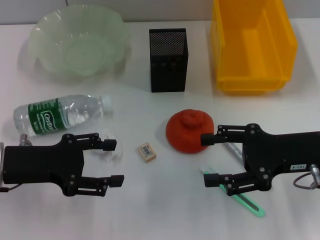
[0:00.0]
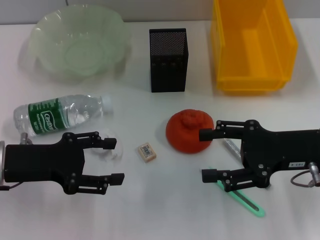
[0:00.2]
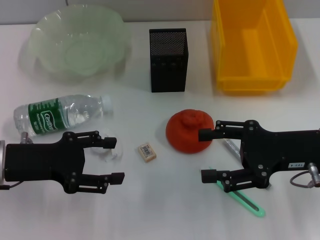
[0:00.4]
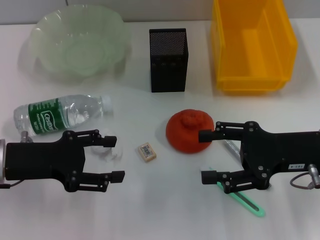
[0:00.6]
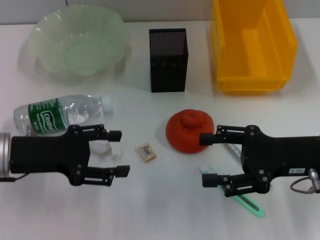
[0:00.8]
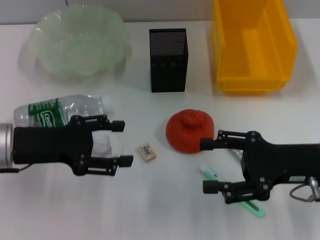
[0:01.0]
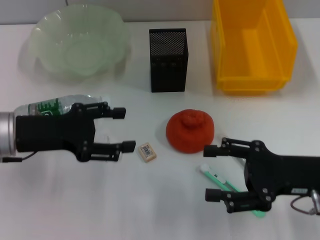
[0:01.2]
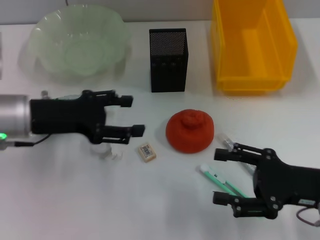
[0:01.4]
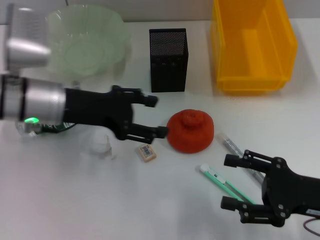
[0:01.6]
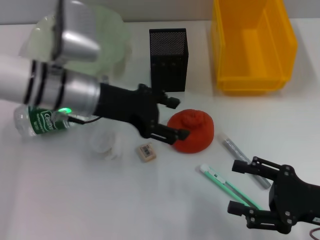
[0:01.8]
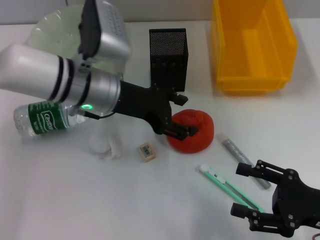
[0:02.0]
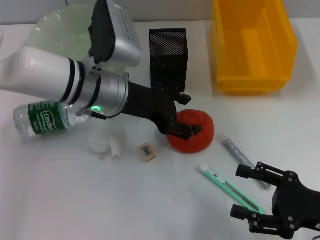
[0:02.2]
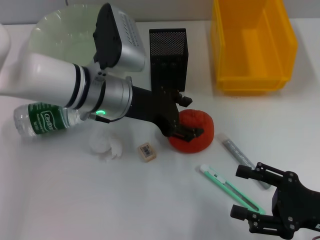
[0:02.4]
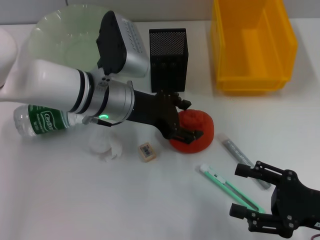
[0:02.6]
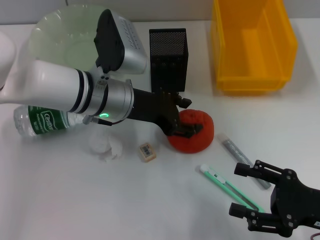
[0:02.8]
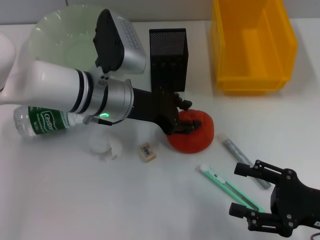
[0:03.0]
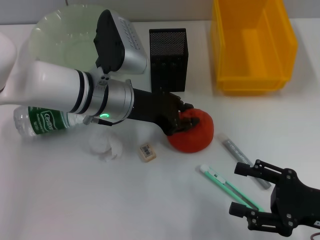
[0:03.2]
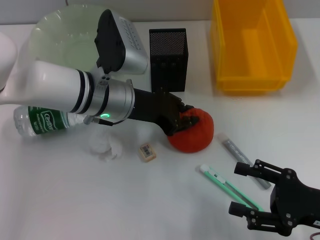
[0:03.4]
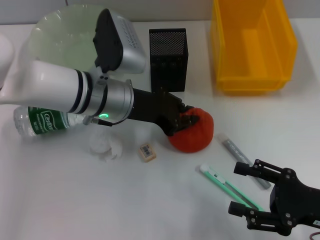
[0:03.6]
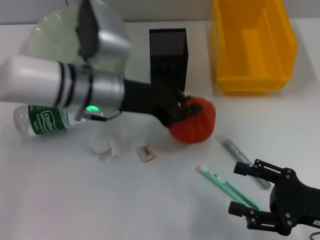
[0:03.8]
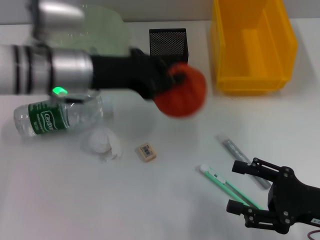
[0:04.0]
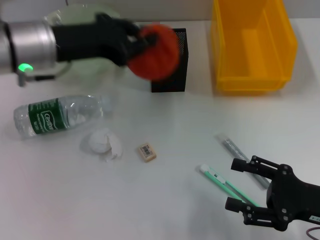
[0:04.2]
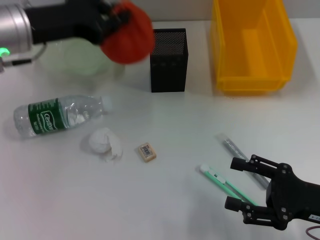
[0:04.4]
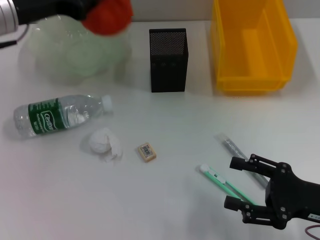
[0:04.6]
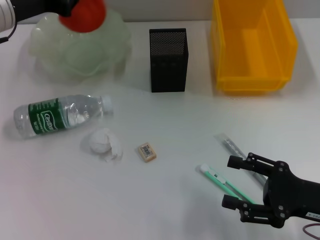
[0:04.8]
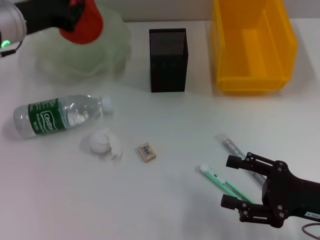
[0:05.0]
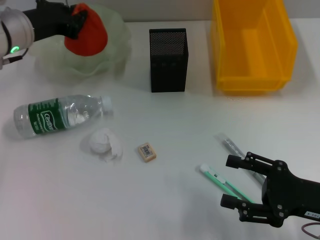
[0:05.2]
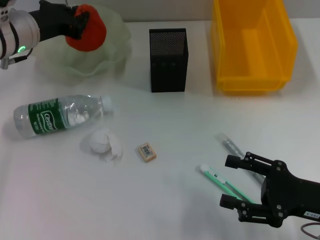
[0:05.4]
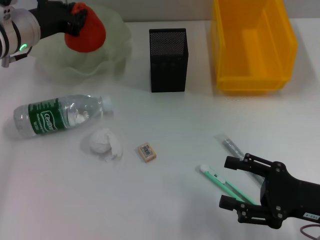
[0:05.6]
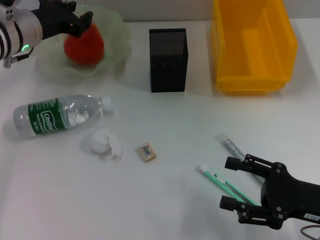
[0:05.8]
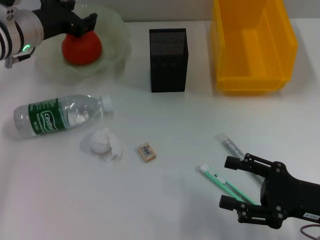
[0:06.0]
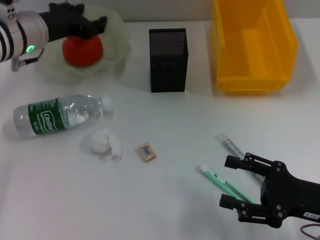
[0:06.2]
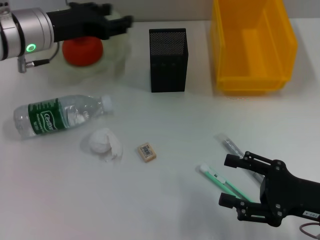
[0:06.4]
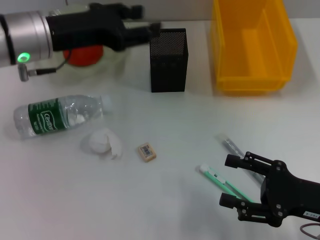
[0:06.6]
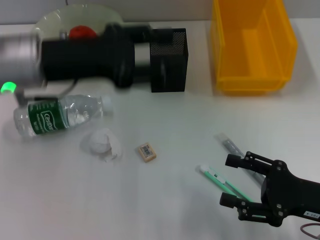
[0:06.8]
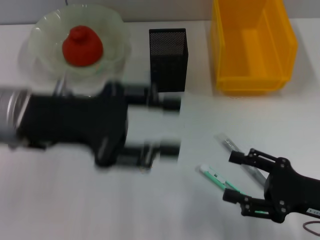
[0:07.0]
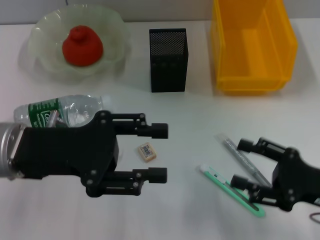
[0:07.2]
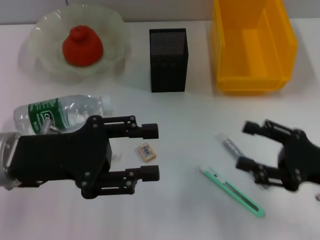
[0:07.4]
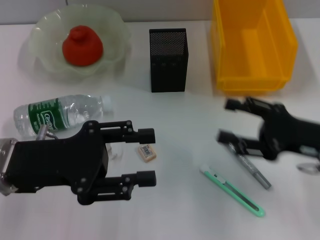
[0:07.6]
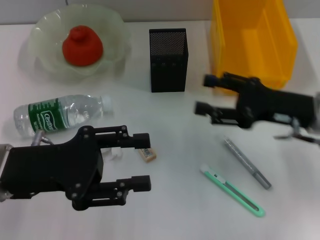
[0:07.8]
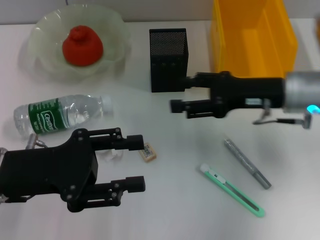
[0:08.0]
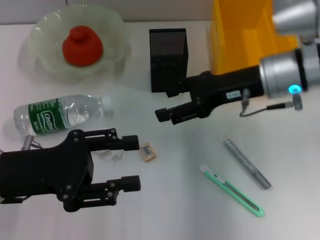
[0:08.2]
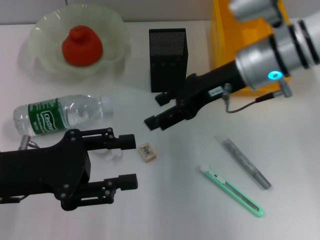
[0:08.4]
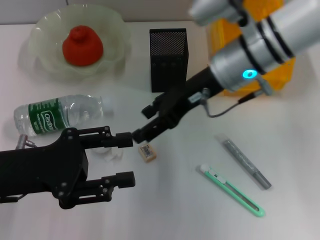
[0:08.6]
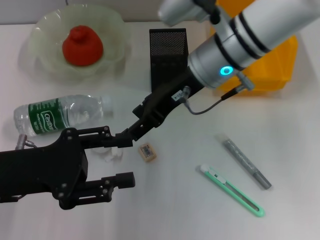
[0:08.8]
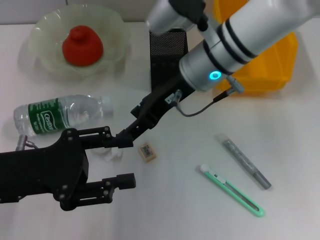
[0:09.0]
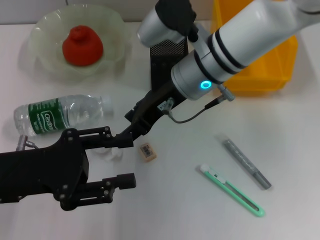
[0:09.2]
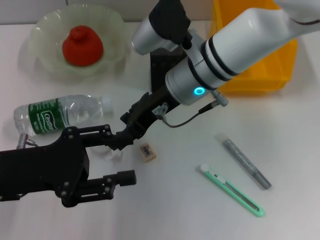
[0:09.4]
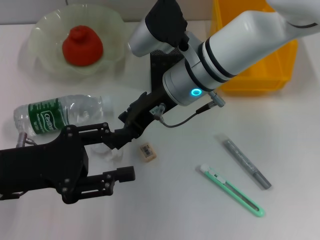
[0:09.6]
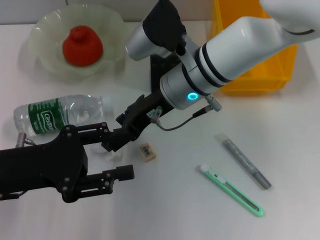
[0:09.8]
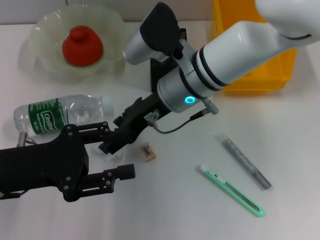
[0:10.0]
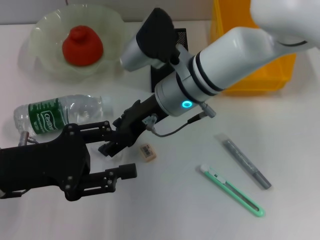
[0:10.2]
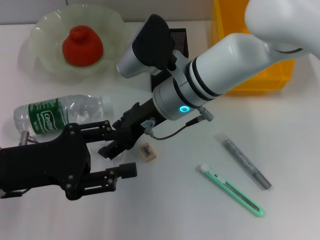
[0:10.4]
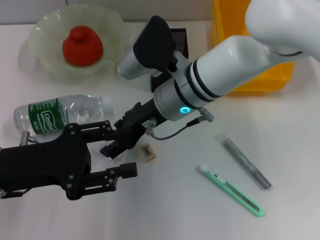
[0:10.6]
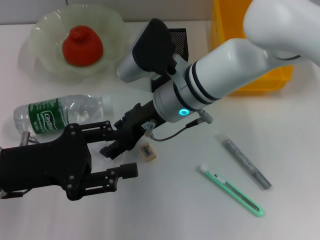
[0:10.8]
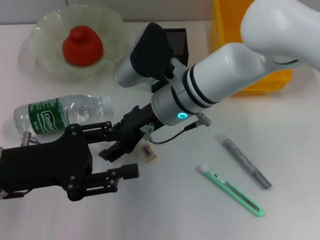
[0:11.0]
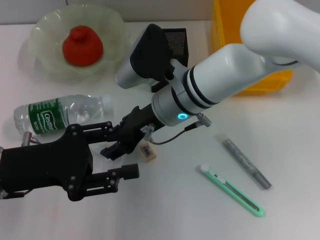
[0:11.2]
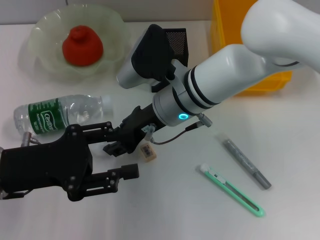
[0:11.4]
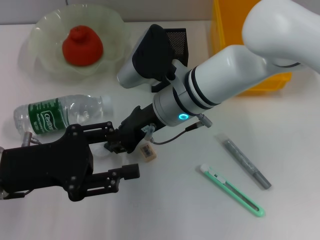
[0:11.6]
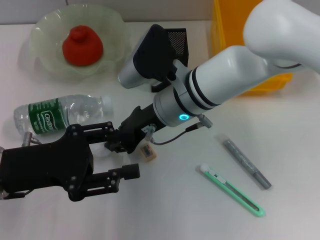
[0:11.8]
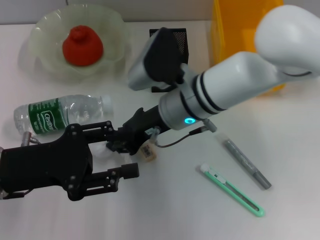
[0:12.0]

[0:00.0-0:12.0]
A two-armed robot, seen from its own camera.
Step, 0:00.0 to 0:03.4: Grab the orange with the left hand.
Step, 0:03.8 to 0:06.0: Place the orange into the fruit bowl with the left hand.
Step, 0:06.2 to 0:11.8: Grab the paper ball with the right hand.
0:00.0 to 0:01.6: The right gripper is displaced backward and downward by approximately 10 cm. The left gripper goes about 10 cm forward and to the right.
0:01.6 to 0:03.0: The left gripper heads to the right, covering some 10 cm.
0:03.0 to 0:04.4: The left gripper moves to the left and upward, about 15 cm, and closes.
0:04.4 to 0:06.0: The left gripper goes approximately 10 cm forward and downward.
0:06.0 to 0:07.6: The left gripper is displaced backward by about 20 cm, and opens. The right gripper travels forward by about 5 cm.
0:07.6 to 0:09.0: The right gripper is displaced to the left and forward by about 25 cm.
0:09.0 to 0:10.4: The right gripper moves some 5 cm.
0:10.4 to 0:12.0: The right gripper closes up.

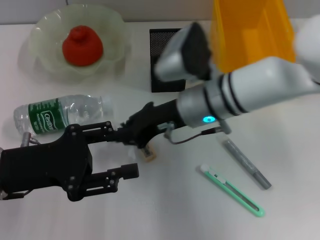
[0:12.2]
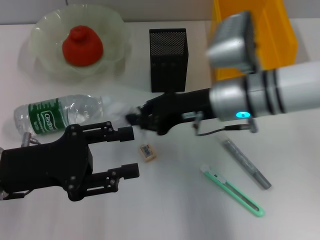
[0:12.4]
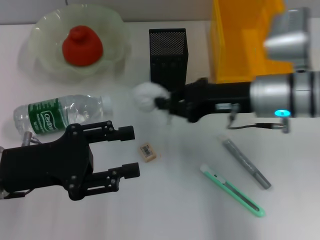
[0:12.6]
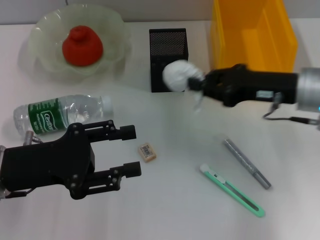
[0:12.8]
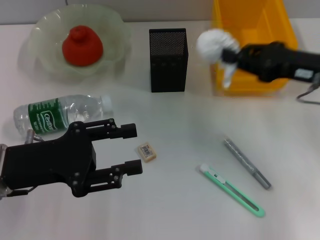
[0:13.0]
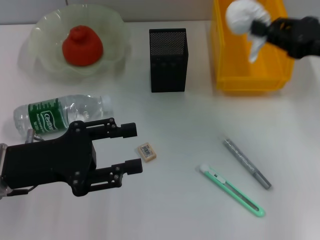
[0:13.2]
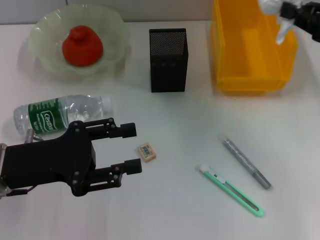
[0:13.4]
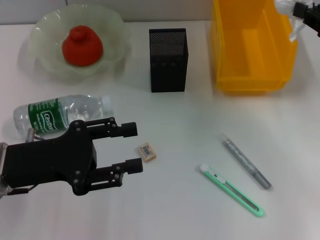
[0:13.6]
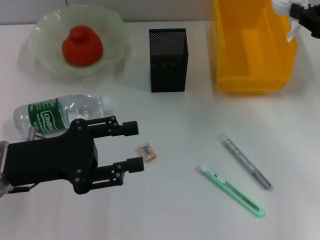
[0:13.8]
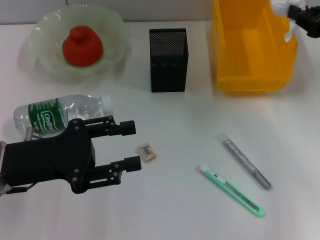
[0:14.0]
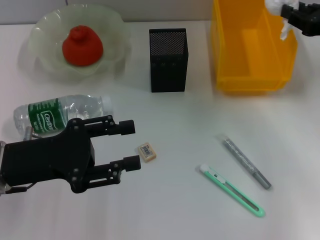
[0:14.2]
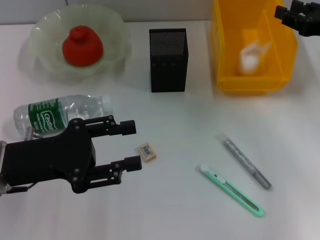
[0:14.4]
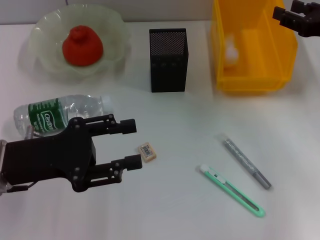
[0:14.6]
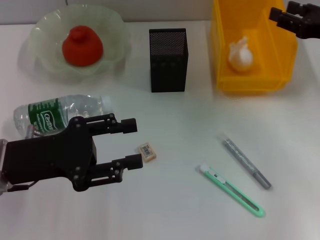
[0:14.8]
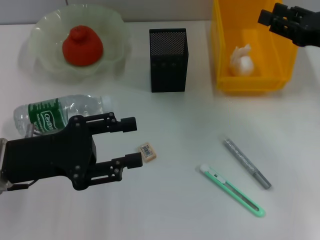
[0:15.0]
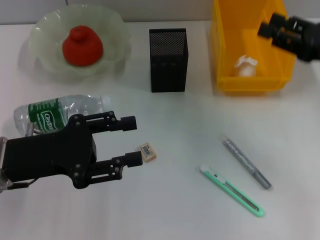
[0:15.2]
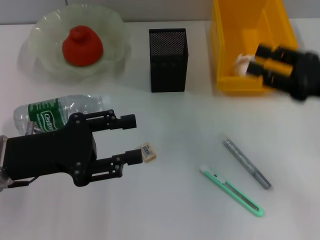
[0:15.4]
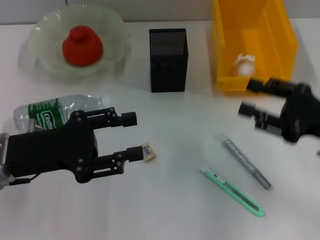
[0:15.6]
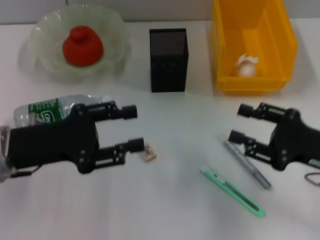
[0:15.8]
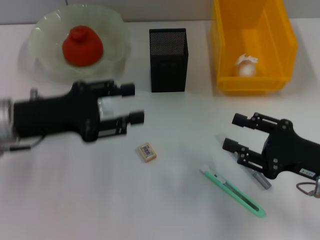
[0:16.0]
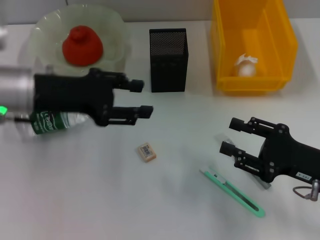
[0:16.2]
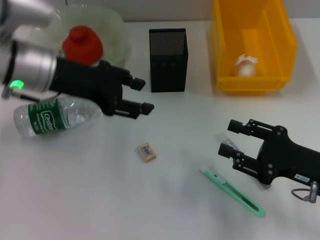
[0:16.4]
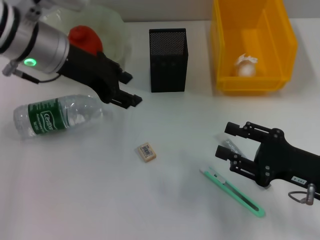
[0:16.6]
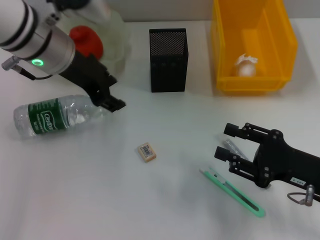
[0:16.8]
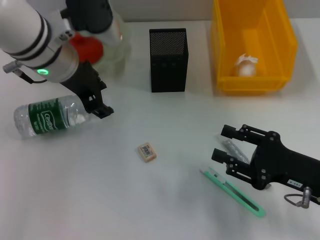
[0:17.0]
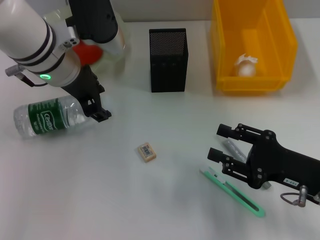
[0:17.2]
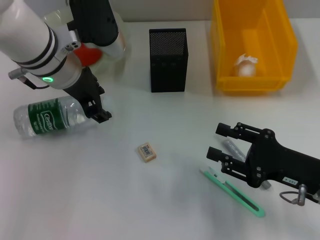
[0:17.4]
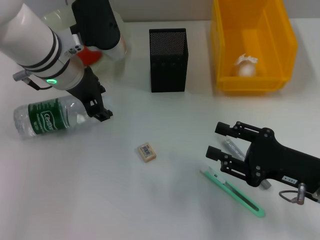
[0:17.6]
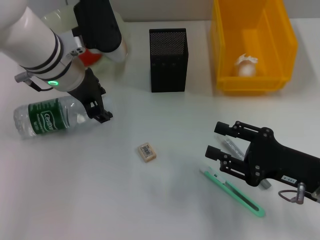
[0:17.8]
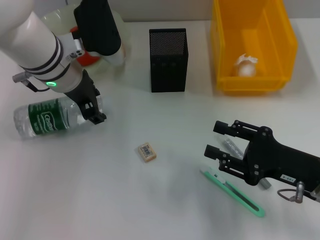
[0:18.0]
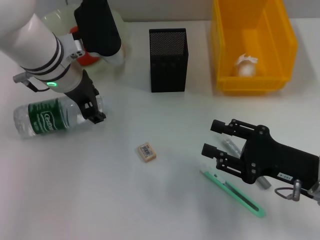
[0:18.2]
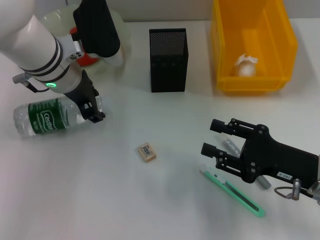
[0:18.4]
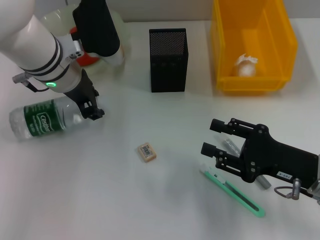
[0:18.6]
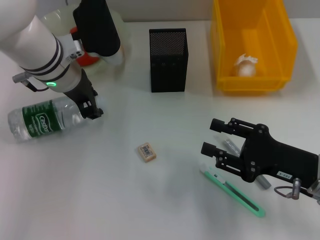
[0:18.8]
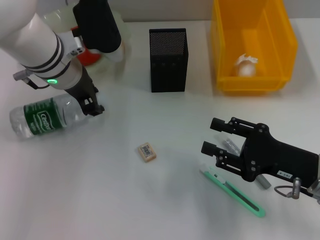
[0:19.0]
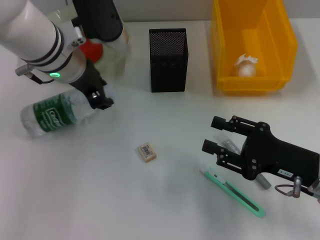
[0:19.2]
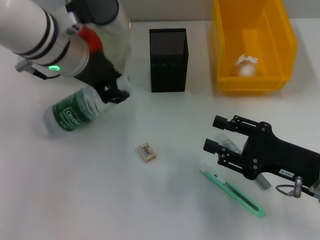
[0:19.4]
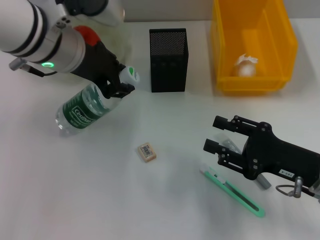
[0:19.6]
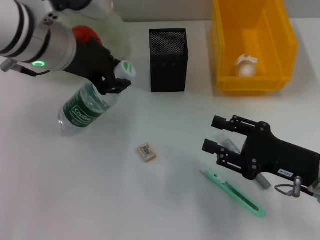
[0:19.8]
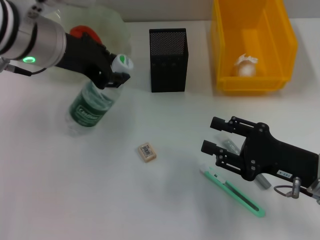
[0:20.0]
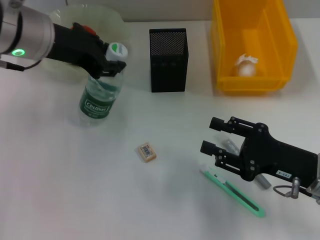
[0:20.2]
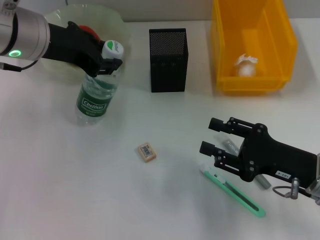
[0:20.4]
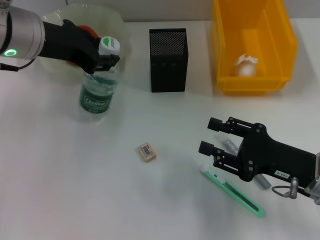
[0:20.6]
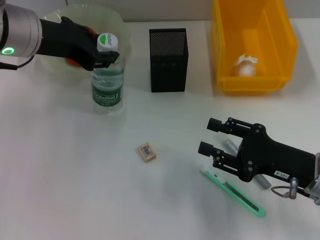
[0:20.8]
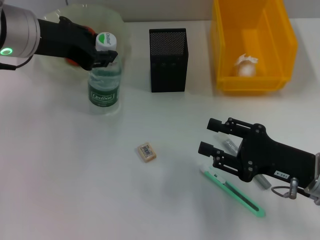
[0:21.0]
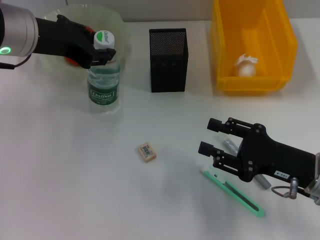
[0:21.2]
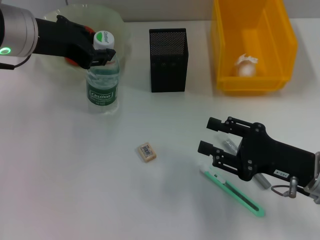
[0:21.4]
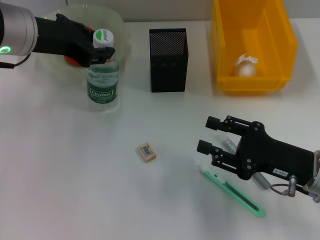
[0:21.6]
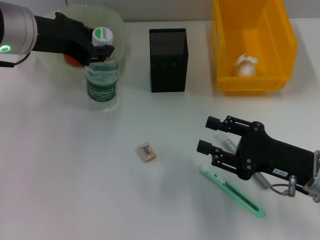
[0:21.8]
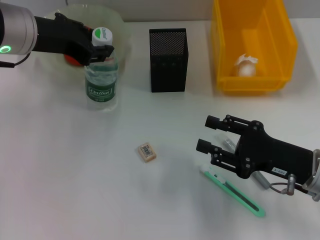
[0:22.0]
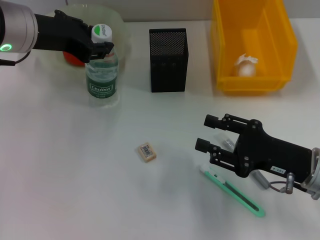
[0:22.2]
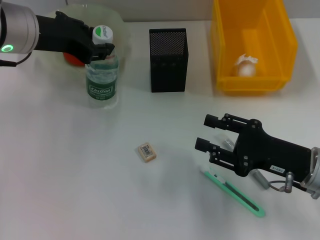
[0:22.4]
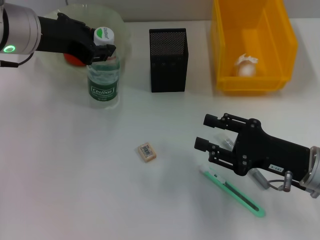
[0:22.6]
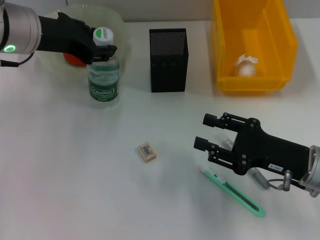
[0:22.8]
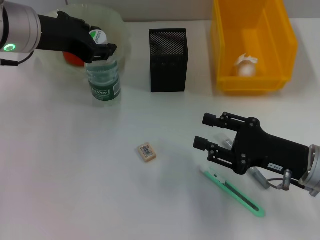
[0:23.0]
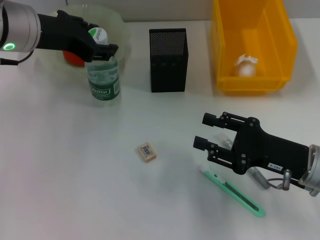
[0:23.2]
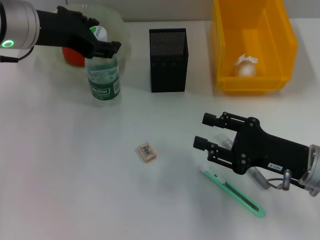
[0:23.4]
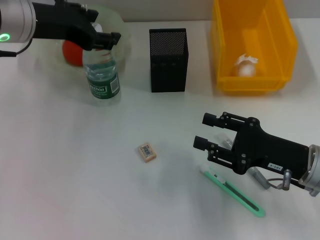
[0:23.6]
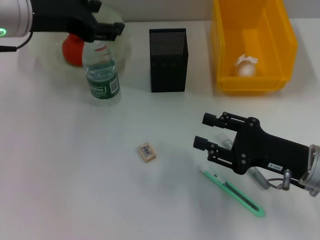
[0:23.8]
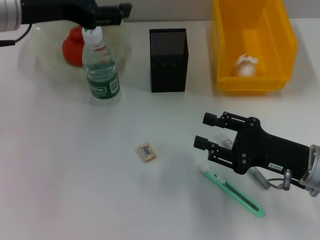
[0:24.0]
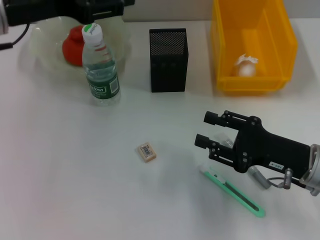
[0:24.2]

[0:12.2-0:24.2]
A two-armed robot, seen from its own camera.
Step, 0:12.2 to 0:14.6: Place the paper ball into the trash can with the right hand.
Step, 0:14.8 to 0:18.2: Grab the water bottle with the left hand.
Step, 0:18.4 to 0:23.2: Place the water bottle on the table with the left hand.
0:12.2 to 0:13.8: The right gripper moves to the right, about 25 cm.
0:13.8 to 0:15.2: The right gripper opens up.
0:15.2 to 0:16.6: The right gripper moves downward and backward, roughly 15 cm. The left gripper moves forward, upward and to the right, some 20 cm.
0:16.6 to 0:18.2: The left gripper moves approximately 5 cm.
0:18.2 to 0:19.8: The left gripper travels upward by some 5 cm.
0:19.8 to 0:21.2: The grippers make only small movements.
0:21.2 to 0:22.6: Both grippers stay about where they are.
0:22.6 to 0:24.2: The left gripper opens.